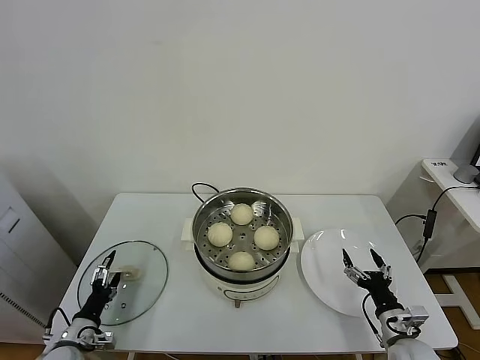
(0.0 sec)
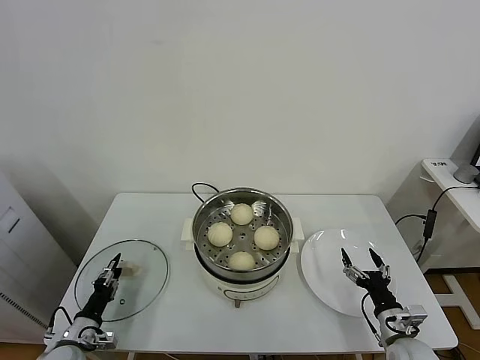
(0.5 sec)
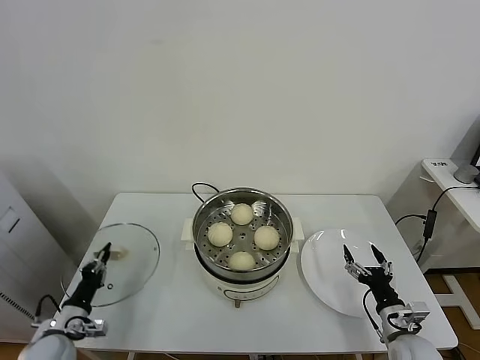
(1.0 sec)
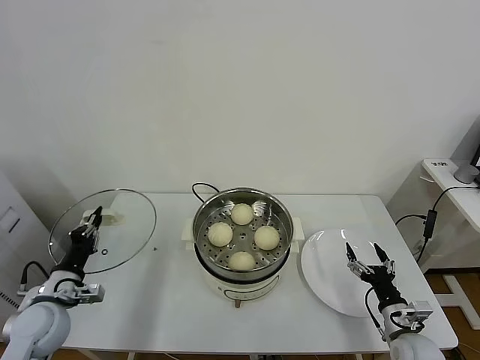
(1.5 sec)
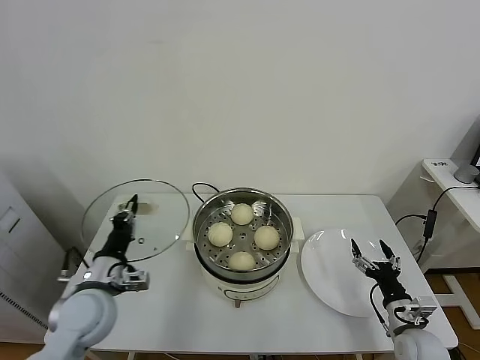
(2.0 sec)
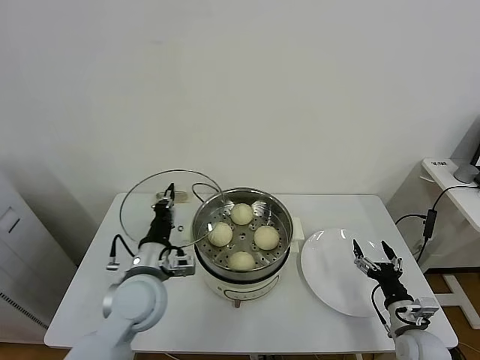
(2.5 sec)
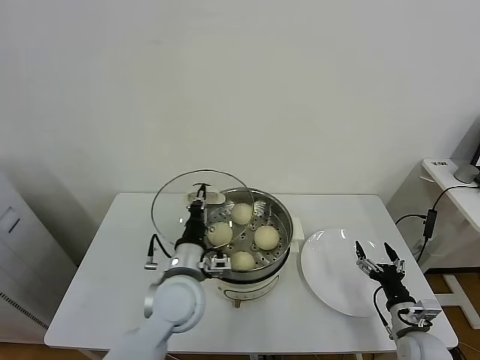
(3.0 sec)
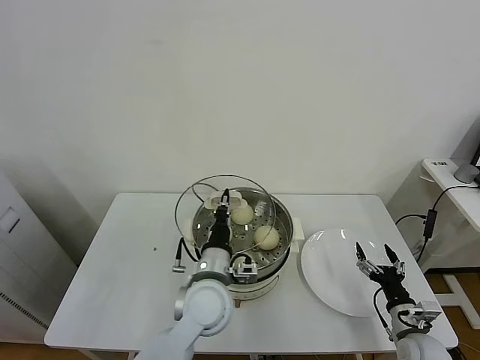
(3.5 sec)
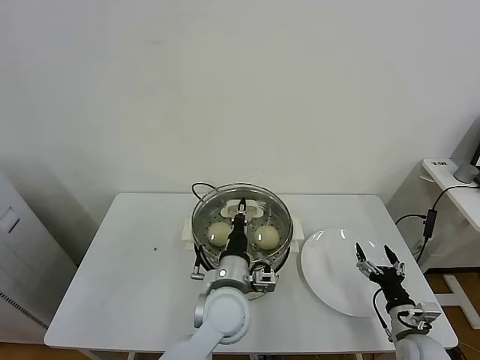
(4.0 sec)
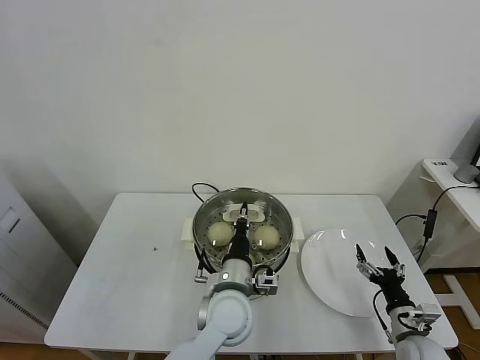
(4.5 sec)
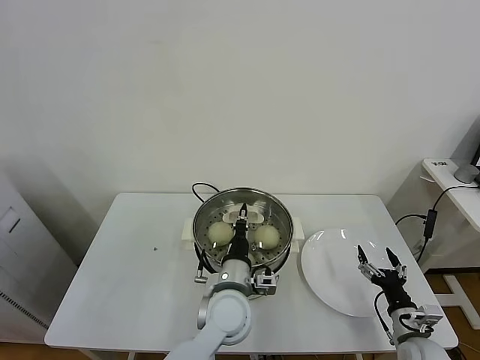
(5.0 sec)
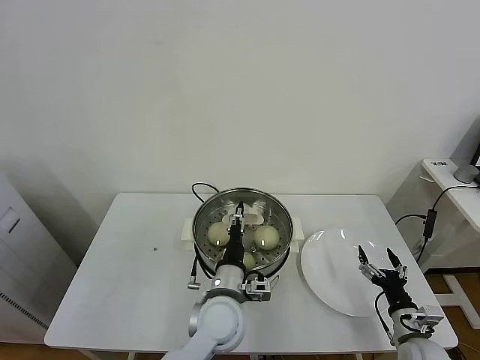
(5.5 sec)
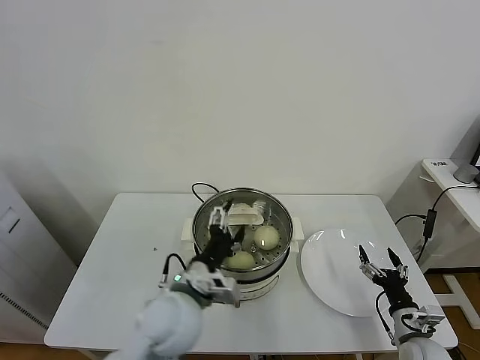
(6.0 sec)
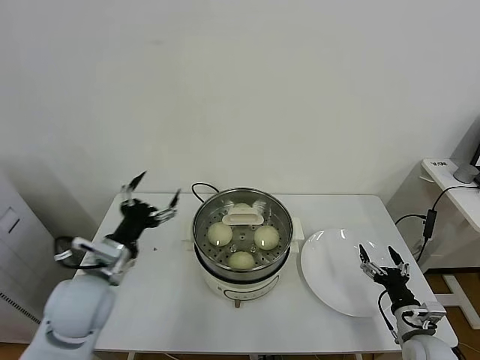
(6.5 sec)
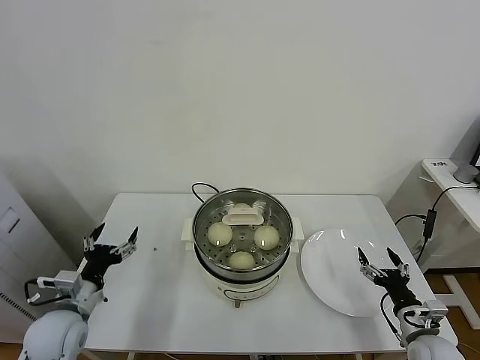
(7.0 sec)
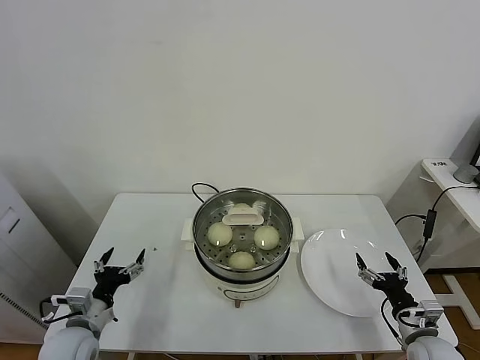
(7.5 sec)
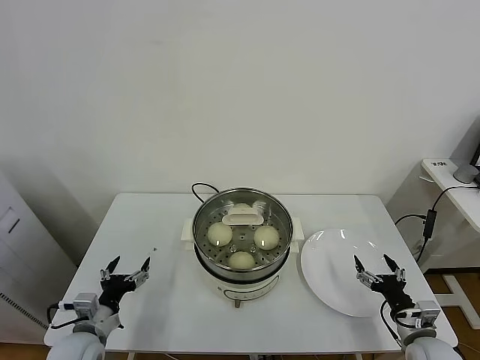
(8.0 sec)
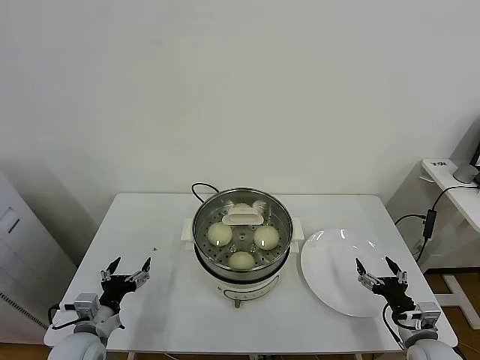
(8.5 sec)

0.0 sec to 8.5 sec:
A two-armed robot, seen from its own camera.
Task of the whole recording: take steamed baozi put them in steamer.
Step, 1.5 sec to 5.5 sec: Place the pot lid on the steamer with left gripper.
0.0 sec to 2.0 sec: The left gripper moves upward and to the right, some 20 cm, and closes.
2.0 sec to 4.0 sec: The left gripper shifts roughly 25 cm to the right.
4.0 sec to 6.5 sec: The left gripper heads to the left, covering some 20 cm, and opens up.
6.5 sec to 8.5 sec: The left gripper goes some 20 cm downward and to the left.
